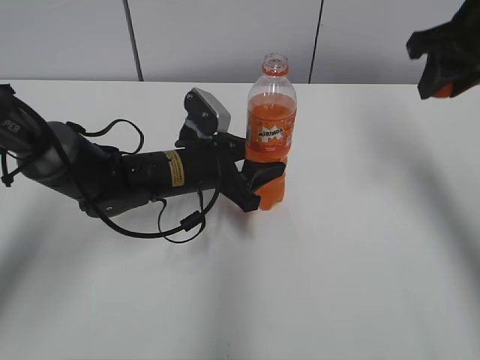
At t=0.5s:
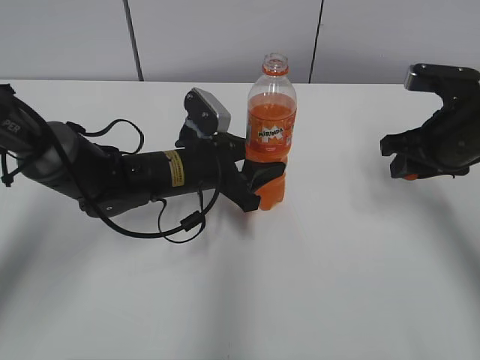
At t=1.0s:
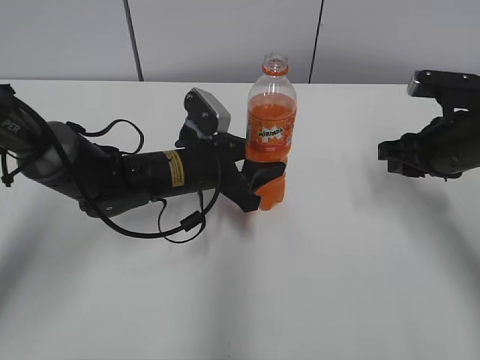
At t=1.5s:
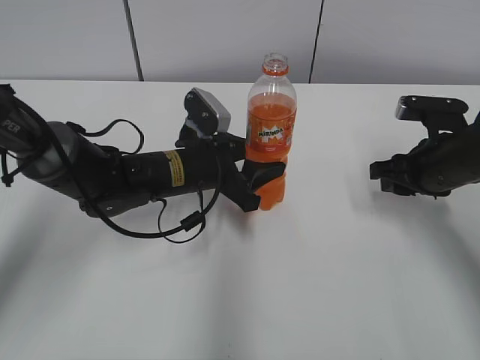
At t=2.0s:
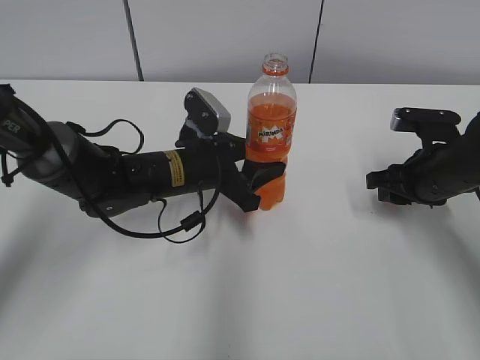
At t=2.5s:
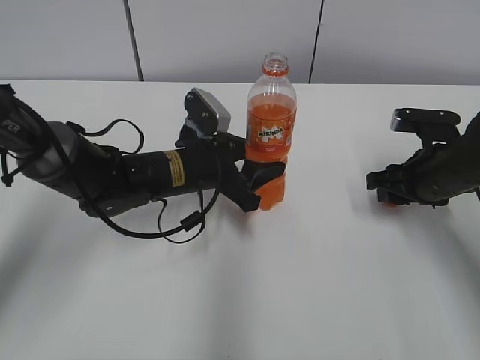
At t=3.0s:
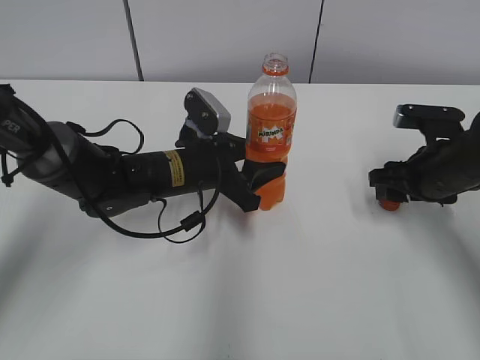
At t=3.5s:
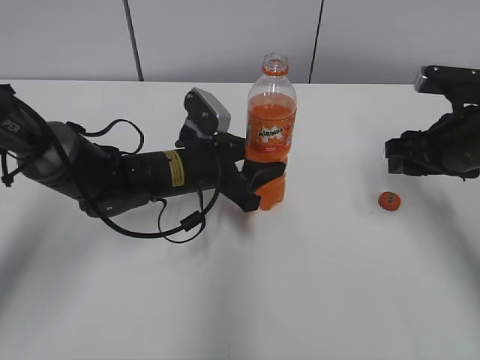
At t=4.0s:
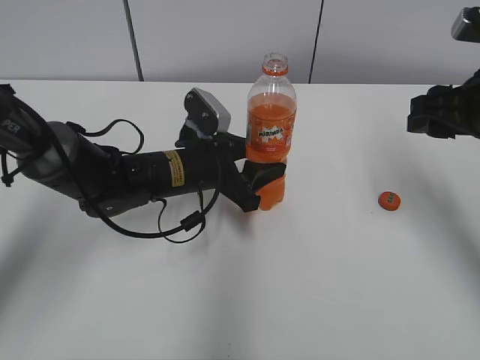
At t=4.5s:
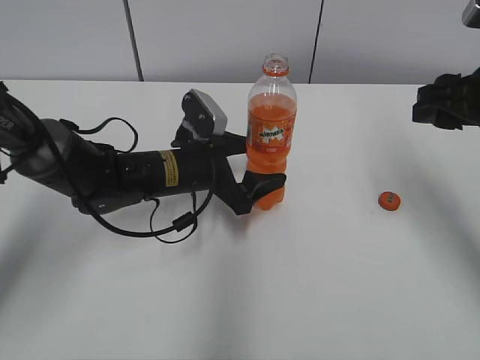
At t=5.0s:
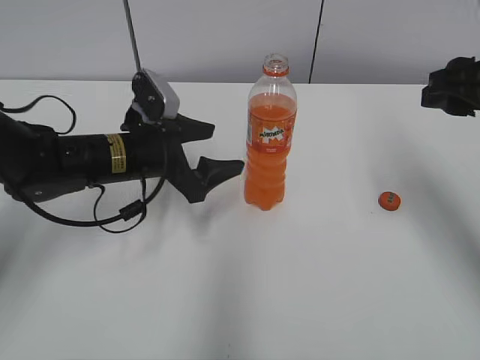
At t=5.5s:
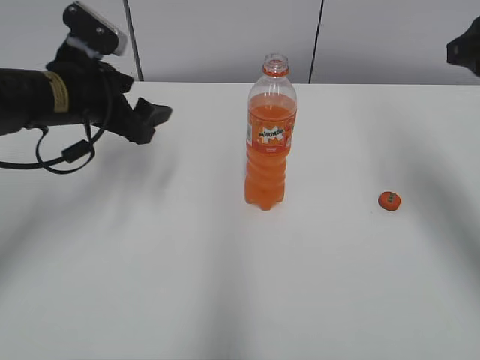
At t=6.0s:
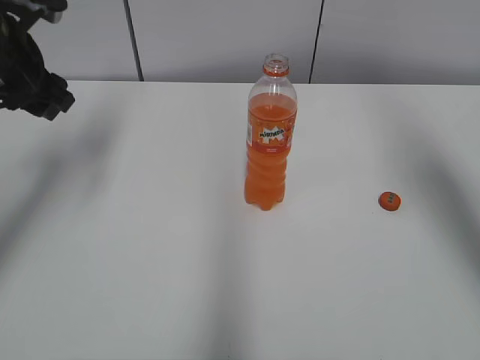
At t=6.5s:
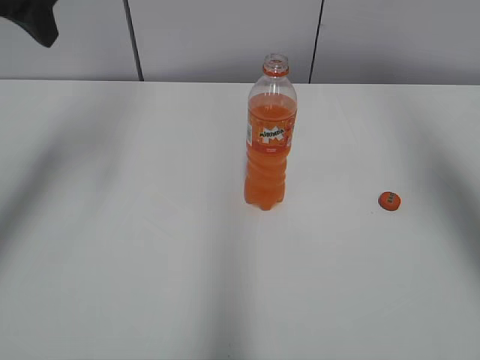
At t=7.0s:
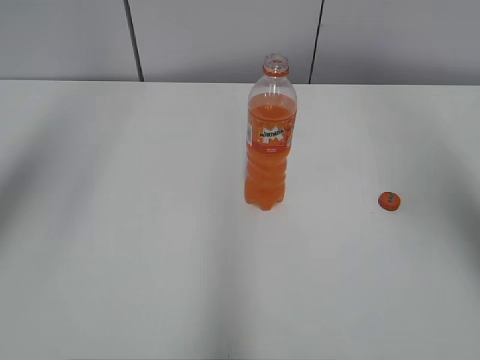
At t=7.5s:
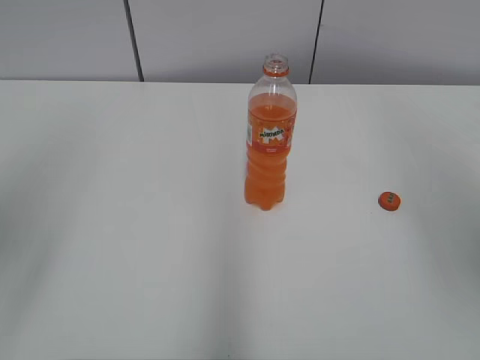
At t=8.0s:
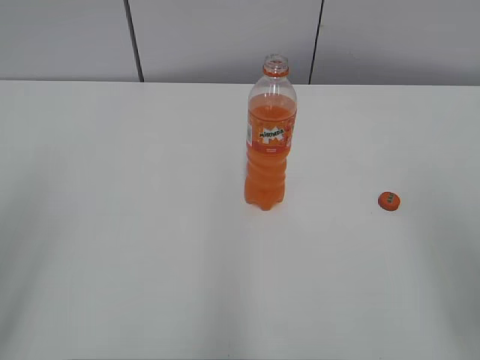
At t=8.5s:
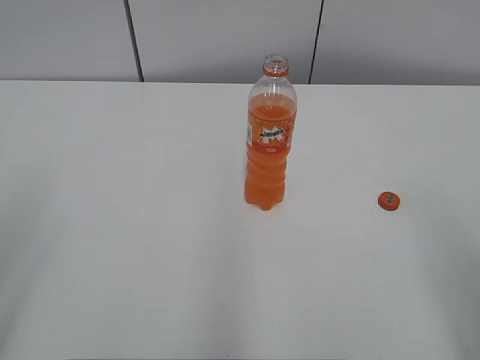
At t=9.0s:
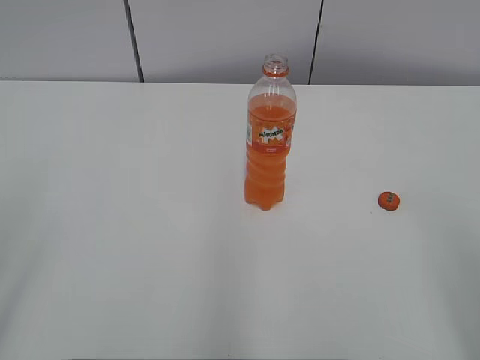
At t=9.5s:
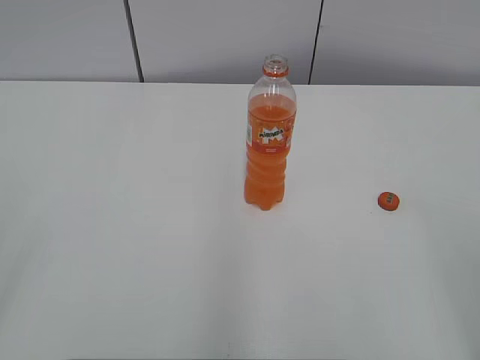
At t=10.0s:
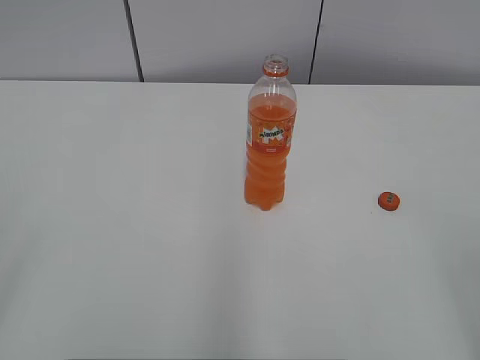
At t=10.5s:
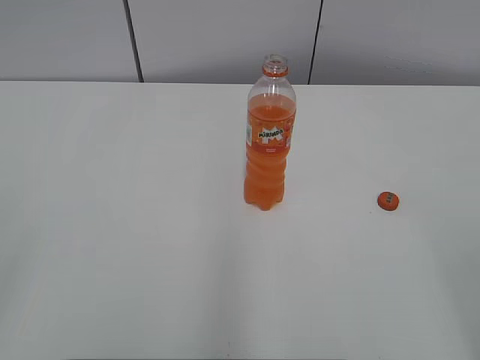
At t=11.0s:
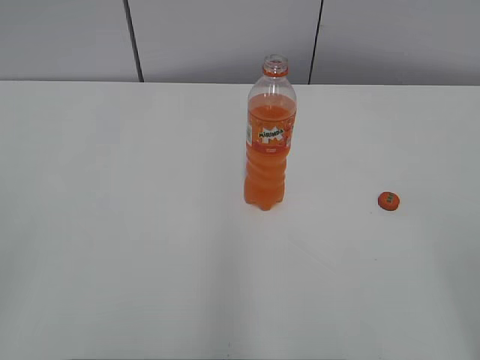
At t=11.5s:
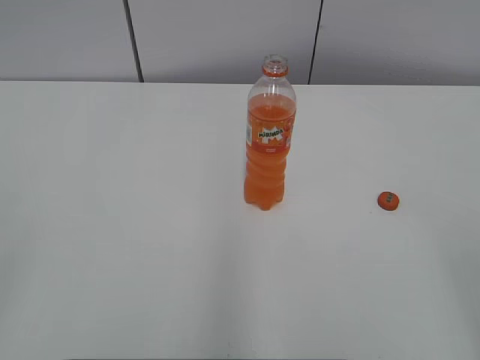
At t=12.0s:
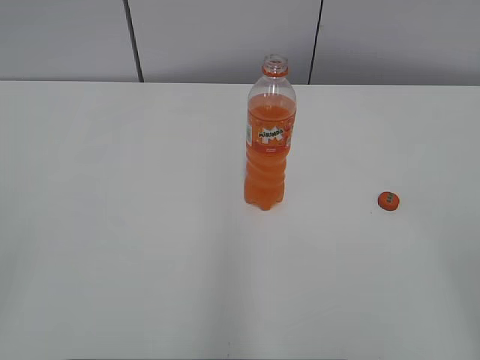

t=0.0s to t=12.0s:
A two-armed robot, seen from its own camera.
Step, t=0.0s to t=2.5s: Place the bottle cap on the right.
t=0.0s to t=2.0s: The right gripper goes some 20 cm downward.
t=2.0s to t=4.0s: The right gripper travels upward by about 15 cm, and opens.
t=4.0s to t=6.0s: The right gripper travels upward by about 15 cm. The left gripper travels to the left and upward by roughly 25 cm, and opens up.
t=6.0s to t=8.0s: Both grippers move backward, approximately 25 cm.
